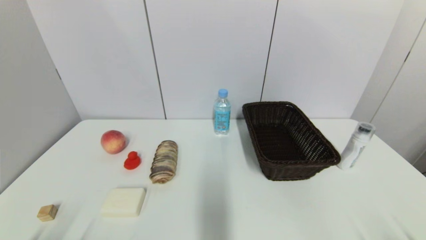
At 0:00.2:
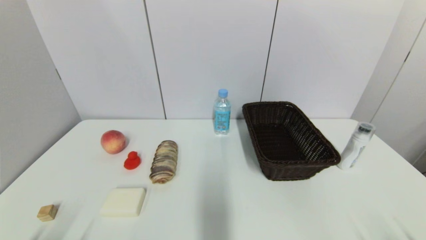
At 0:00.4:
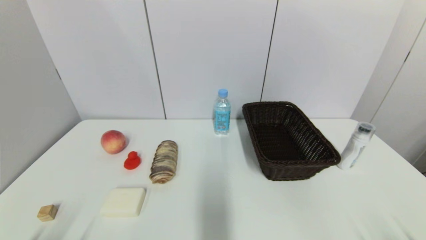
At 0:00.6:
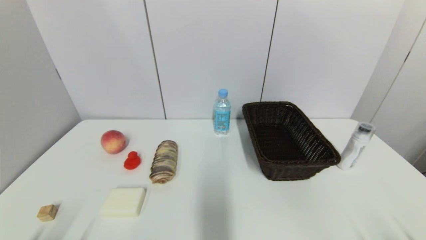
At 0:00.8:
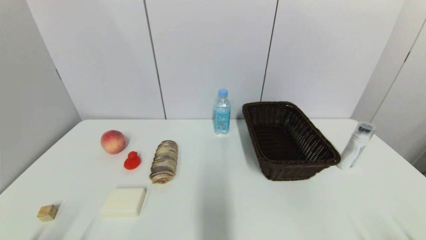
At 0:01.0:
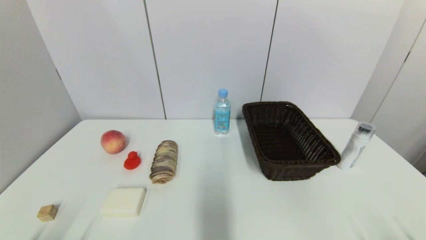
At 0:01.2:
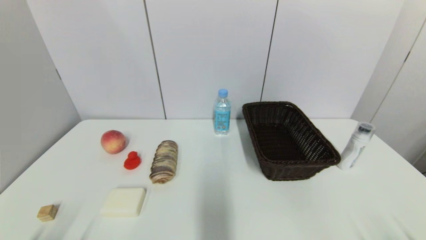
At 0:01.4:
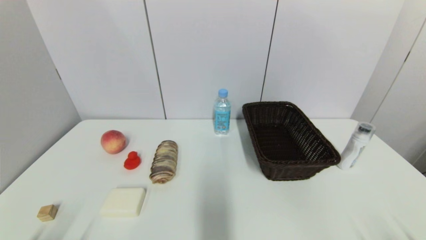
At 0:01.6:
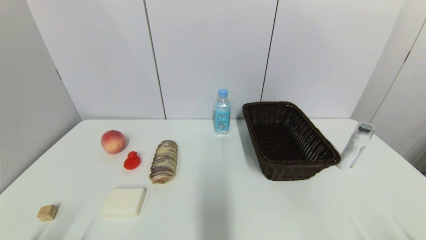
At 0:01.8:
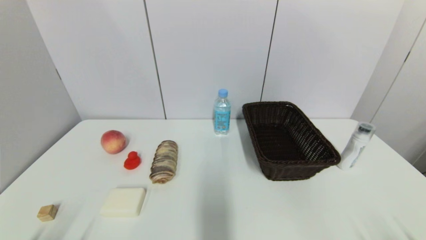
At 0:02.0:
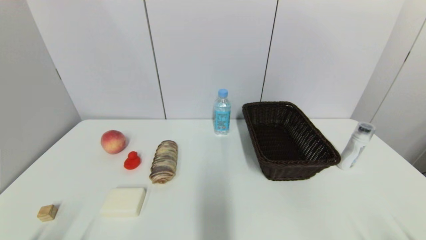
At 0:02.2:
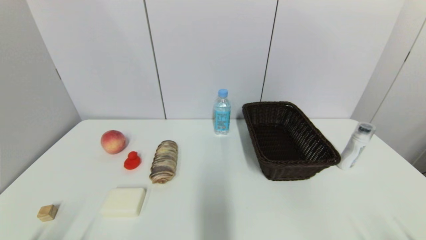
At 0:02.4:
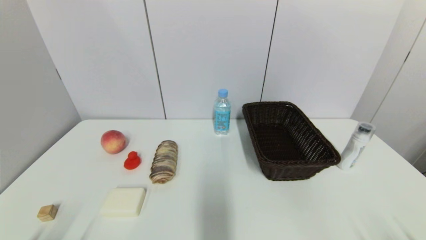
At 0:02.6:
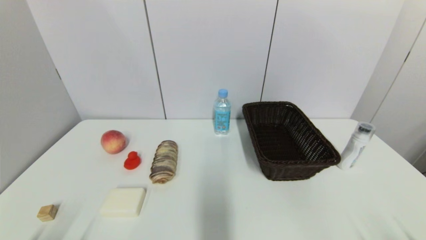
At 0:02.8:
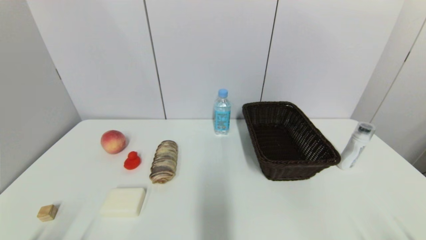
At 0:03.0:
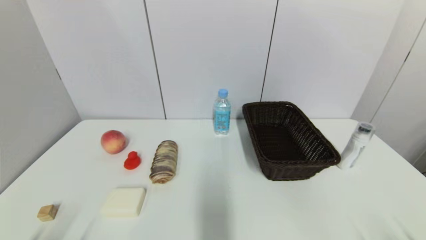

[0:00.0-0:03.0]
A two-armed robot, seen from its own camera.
0:00.0 to 0:03.0: The two grippers keep their place.
